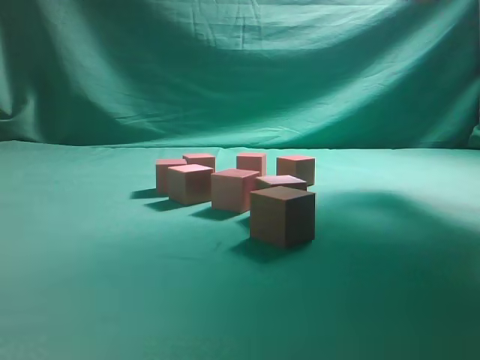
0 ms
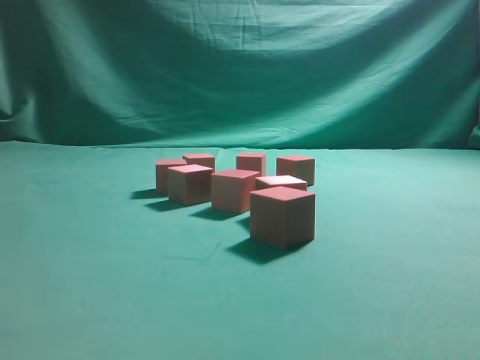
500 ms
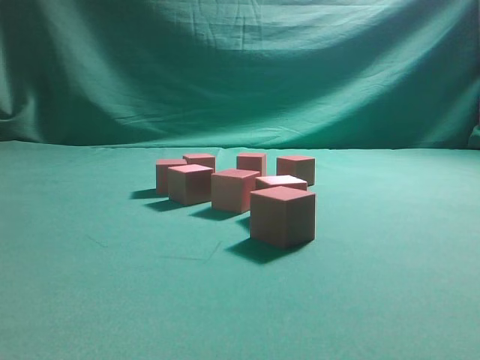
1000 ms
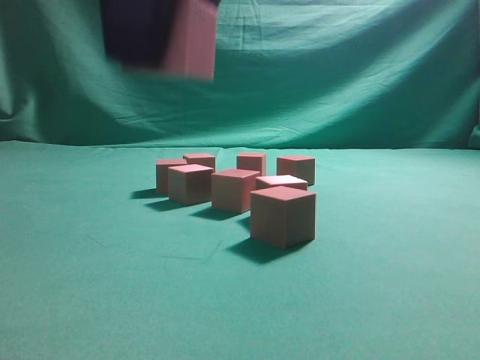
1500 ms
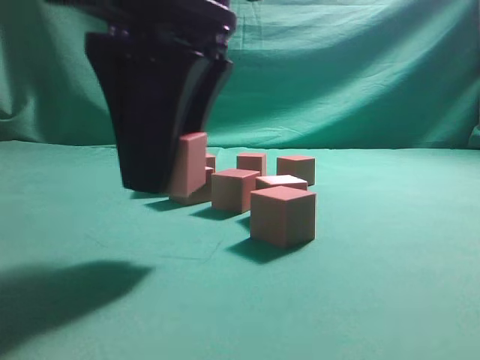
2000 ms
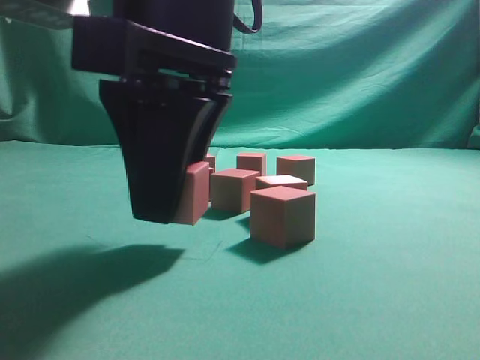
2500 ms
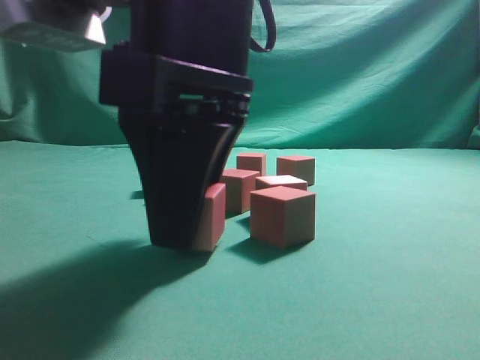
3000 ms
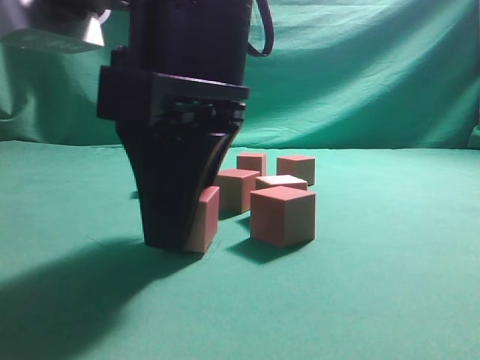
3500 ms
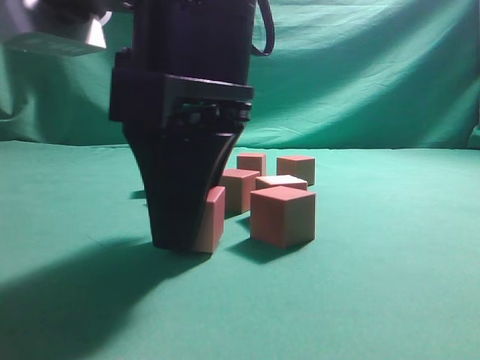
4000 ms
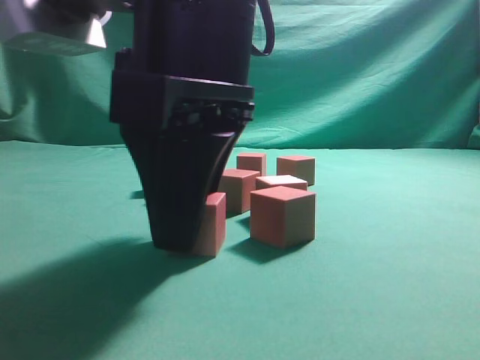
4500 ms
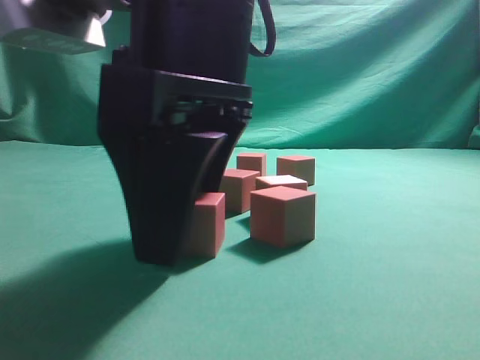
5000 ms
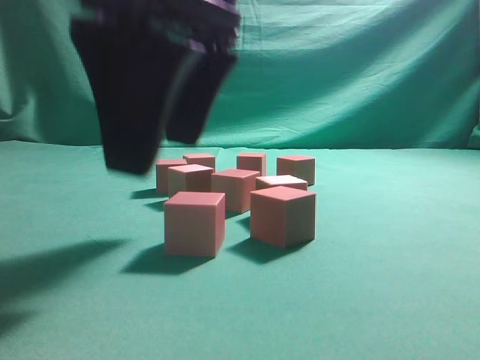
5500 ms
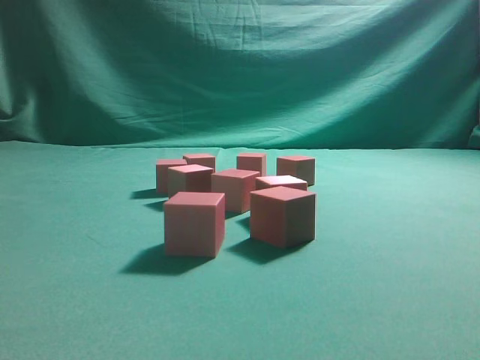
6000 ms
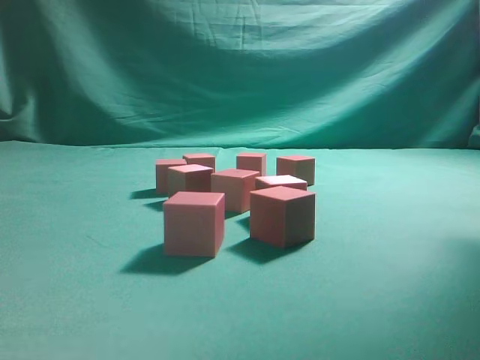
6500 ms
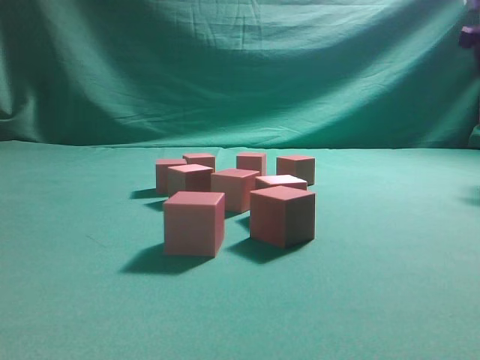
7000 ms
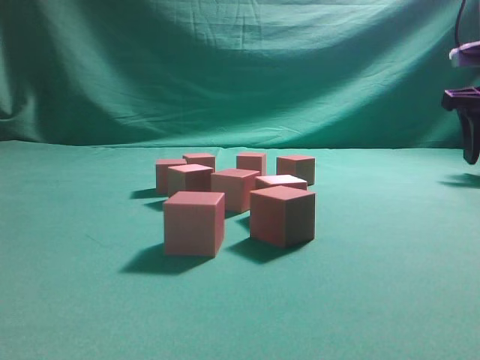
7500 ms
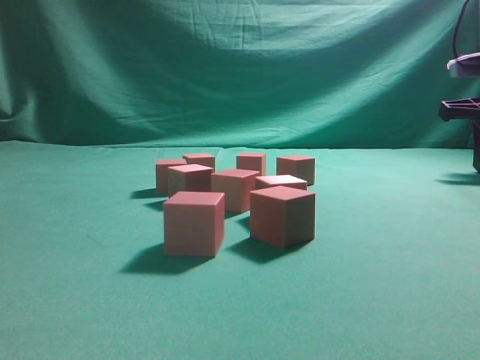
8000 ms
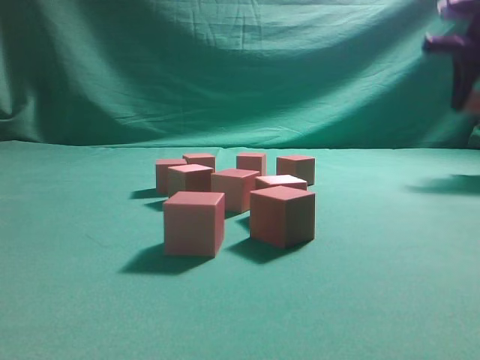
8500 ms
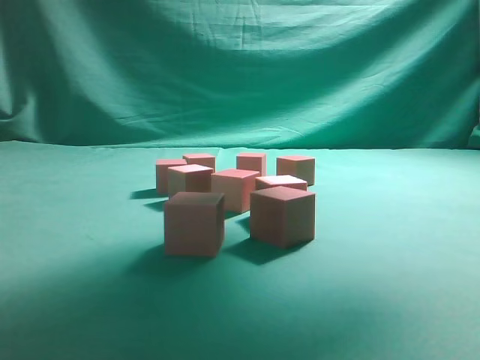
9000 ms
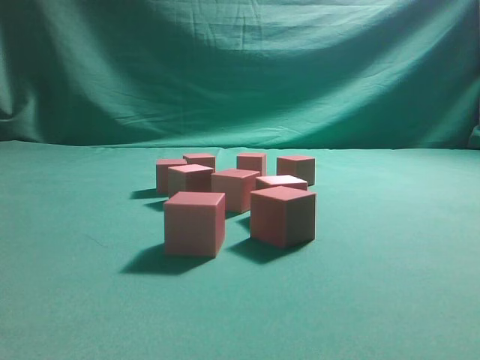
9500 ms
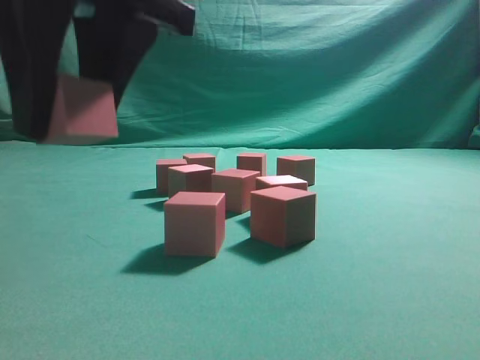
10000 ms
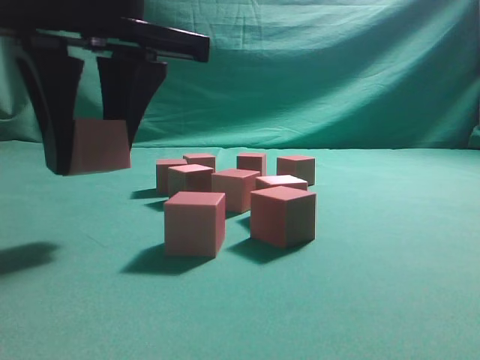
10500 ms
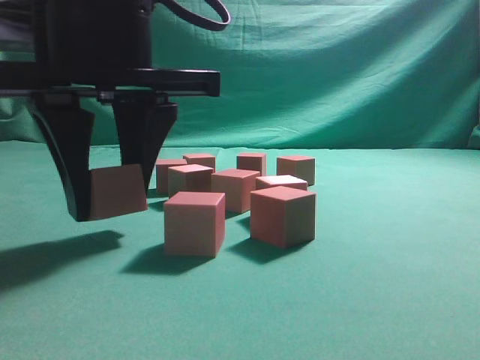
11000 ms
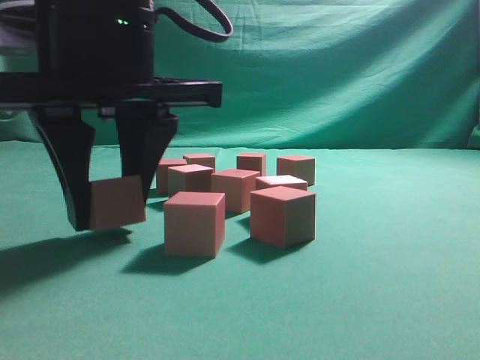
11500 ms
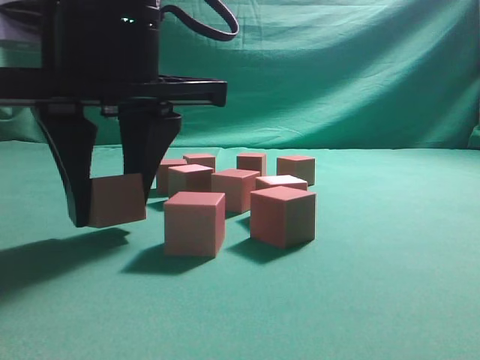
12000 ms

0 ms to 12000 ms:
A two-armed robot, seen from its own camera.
Task of the whole recording: pick up the multiple cubes in two columns one by one and place them in another position on the table.
Step, 0 ms to 5500 ms: Place the block at the correct position to assemble the letter S.
Step, 6000 ms to 8500 ms: Pick up the block on the table.
0 ms to 2000 ms: The right gripper heads to the left, backward and downward, covering roughly 35 cm.
2000 ms to 4000 ms: The grippers stay close to where they were, moving slightly.
4000 ms to 6000 ms: The right gripper is displaced upward by some 20 cm, and opens.
6000 ms to 8000 ms: The right gripper shifts roughly 40 cm to the right, downward and forward, and closes its fingers.
8000 ms to 10000 ms: The right gripper goes some 50 cm to the left and backward.
10000 ms to 12000 ms: The right gripper heads downward, covering roughly 5 cm.

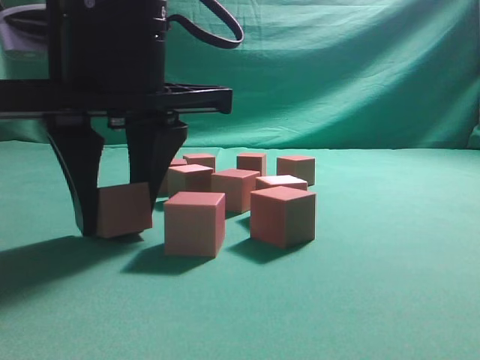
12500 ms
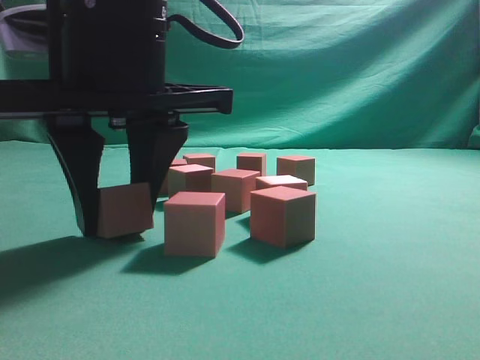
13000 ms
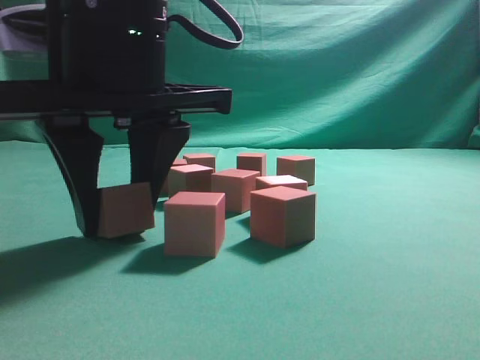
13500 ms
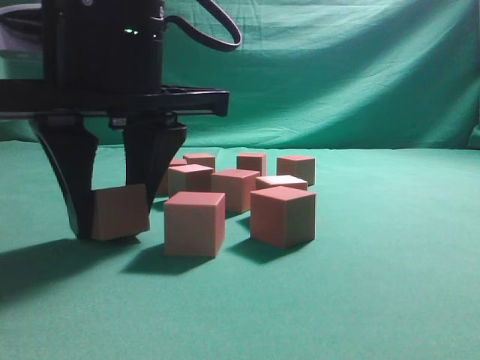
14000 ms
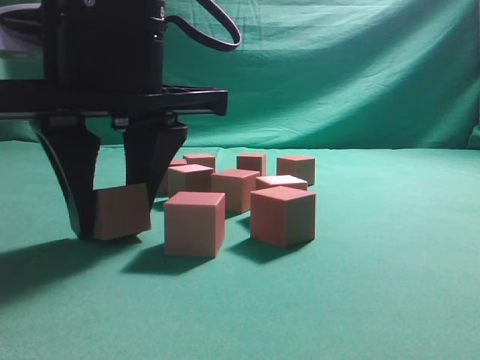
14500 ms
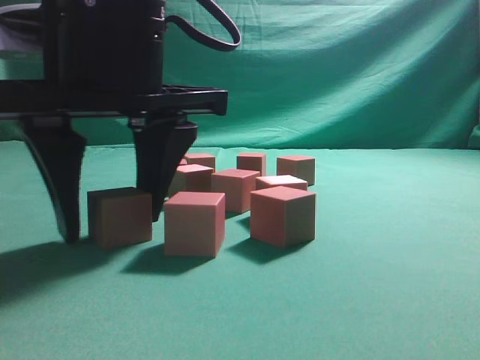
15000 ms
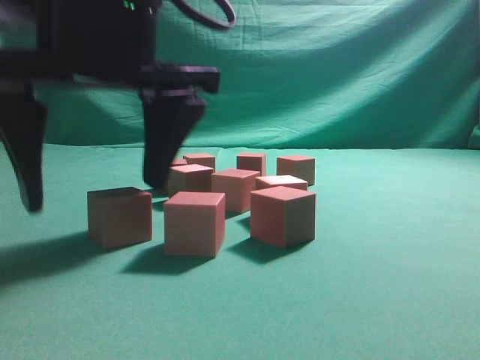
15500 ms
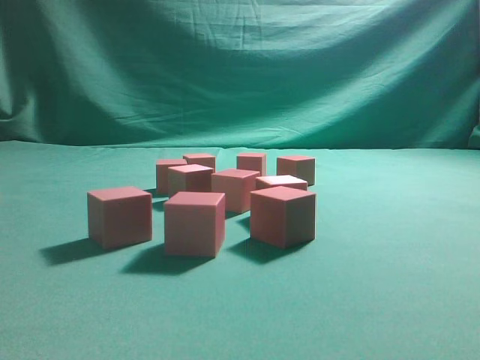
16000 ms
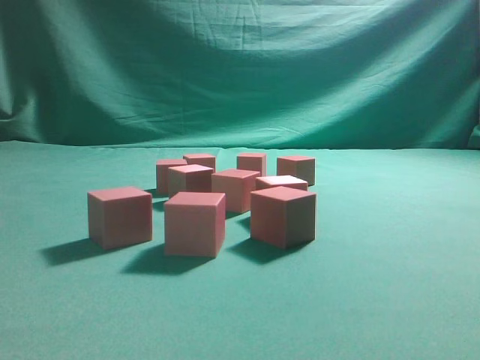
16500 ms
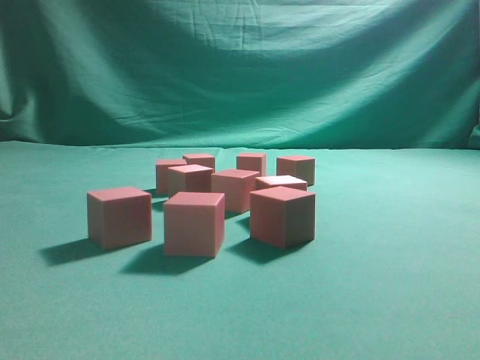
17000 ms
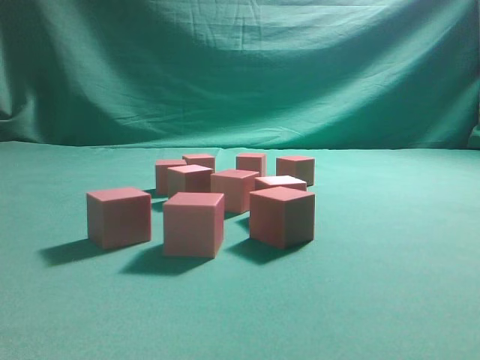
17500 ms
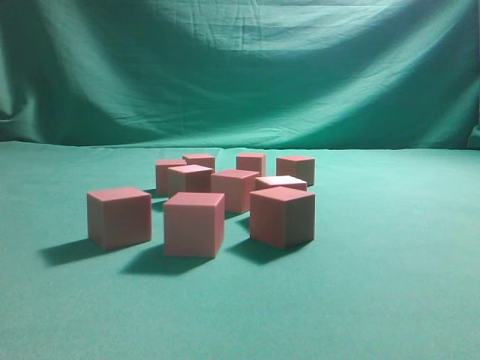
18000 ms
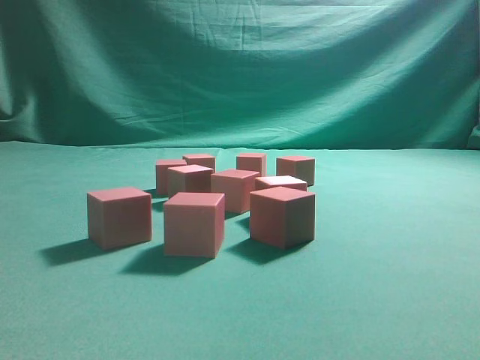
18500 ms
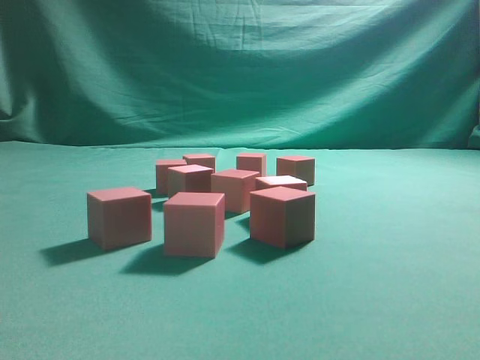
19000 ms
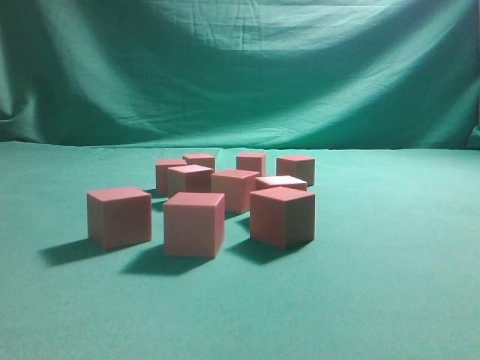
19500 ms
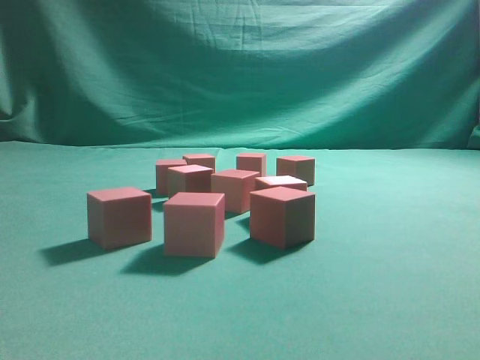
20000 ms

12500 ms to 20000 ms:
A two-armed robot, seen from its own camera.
Task of the whole recording: pick up the multiple cubes in two columns one by one and place them in another position on the table.
Step, 12500 ms to 15500 ms: Place the block at the correct position to assemble the letter S.
12500 ms to 14500 ms: Both grippers stay about where they are.
14500 ms to 16500 ms: The right gripper travels upward by about 25 cm, and closes.
